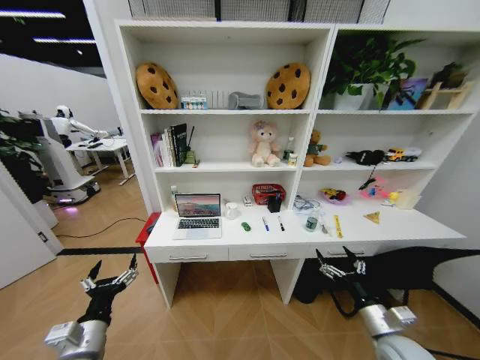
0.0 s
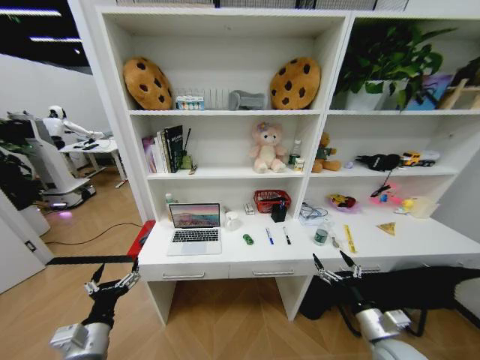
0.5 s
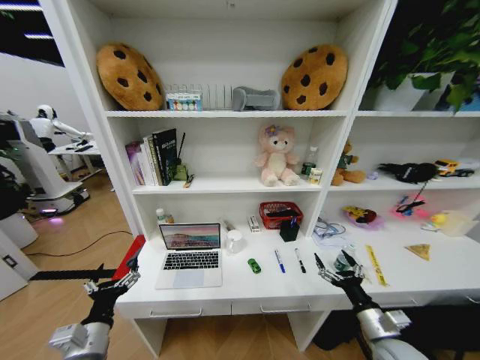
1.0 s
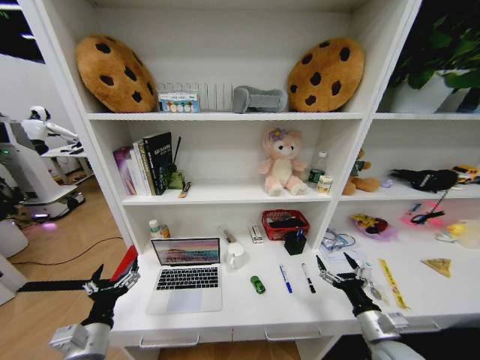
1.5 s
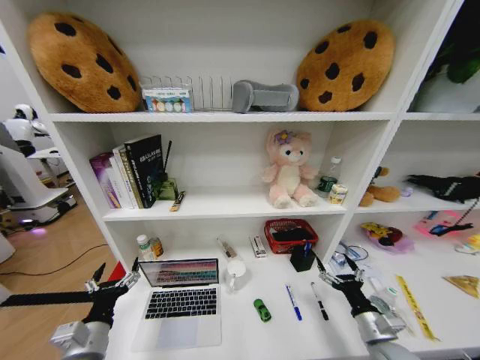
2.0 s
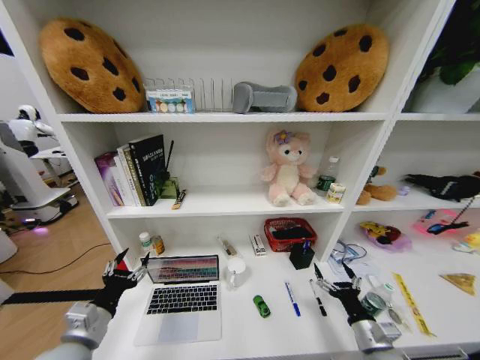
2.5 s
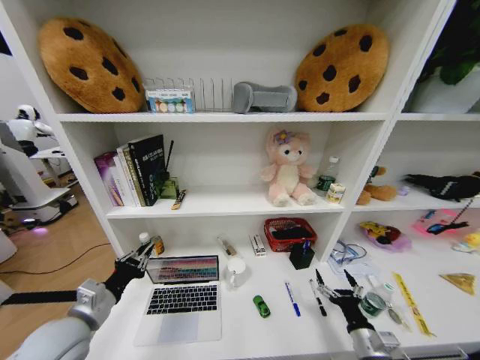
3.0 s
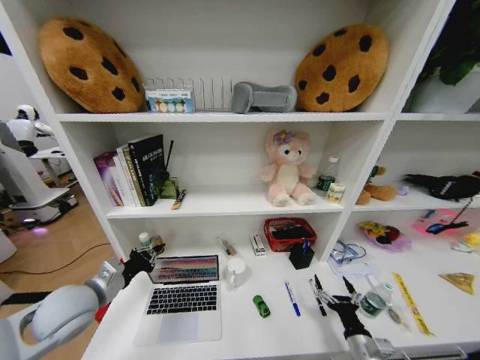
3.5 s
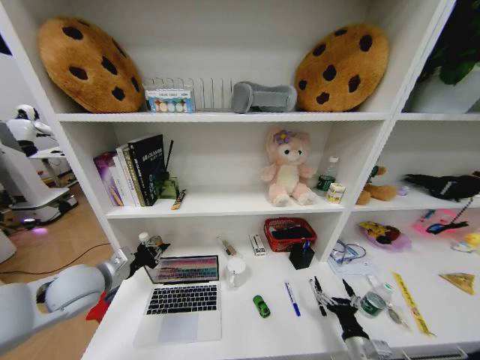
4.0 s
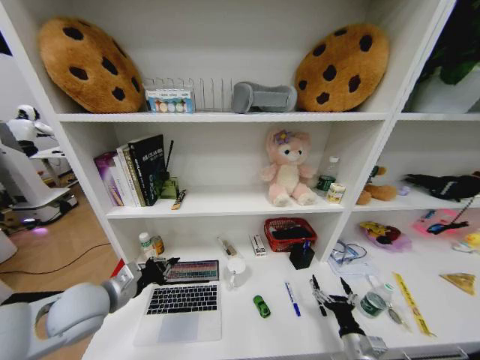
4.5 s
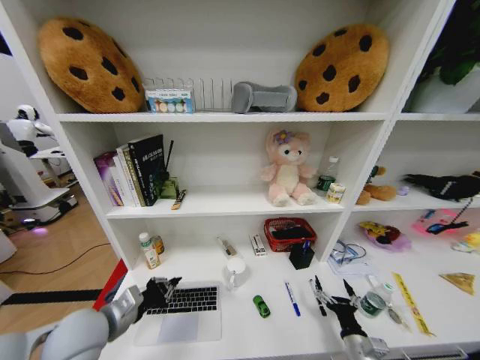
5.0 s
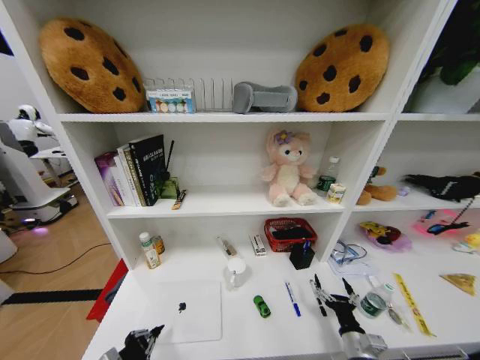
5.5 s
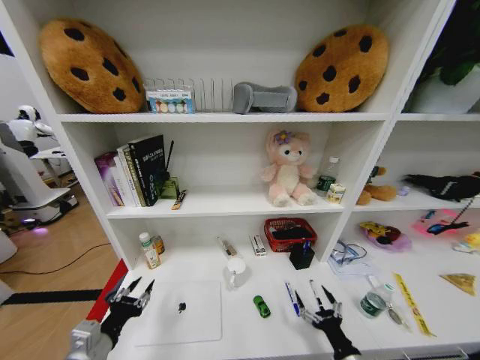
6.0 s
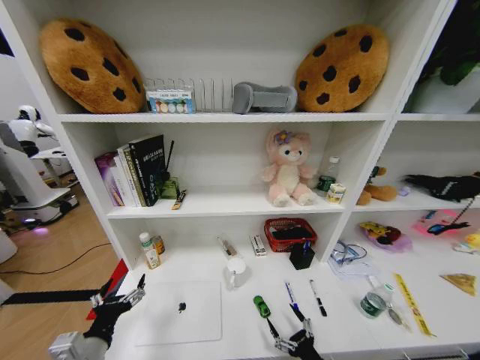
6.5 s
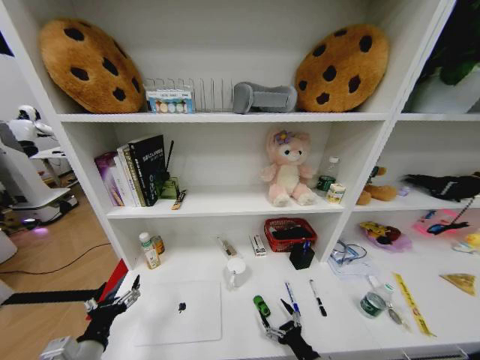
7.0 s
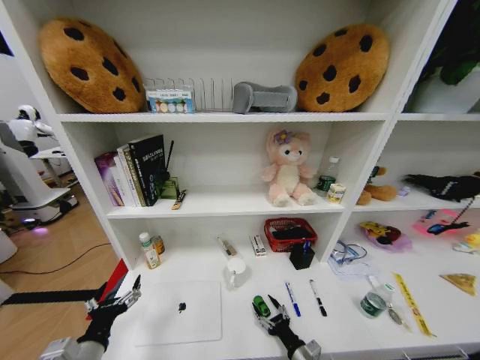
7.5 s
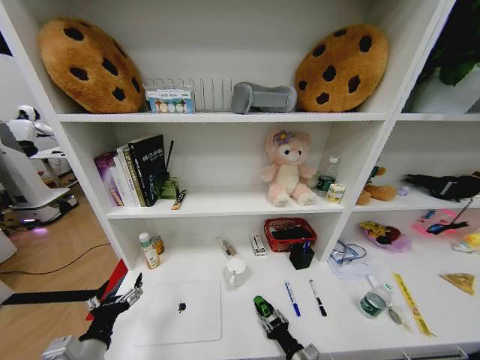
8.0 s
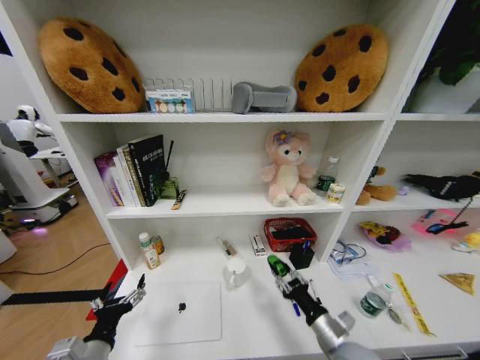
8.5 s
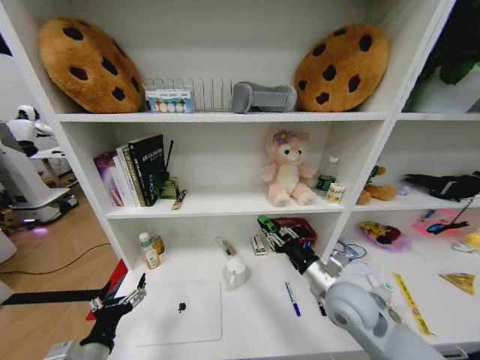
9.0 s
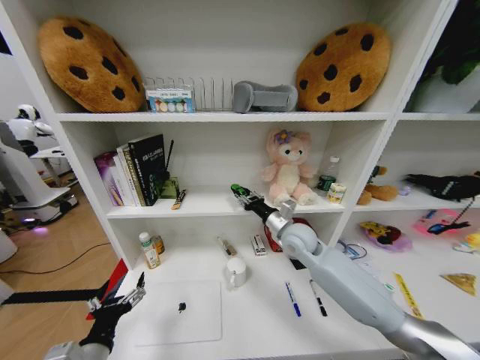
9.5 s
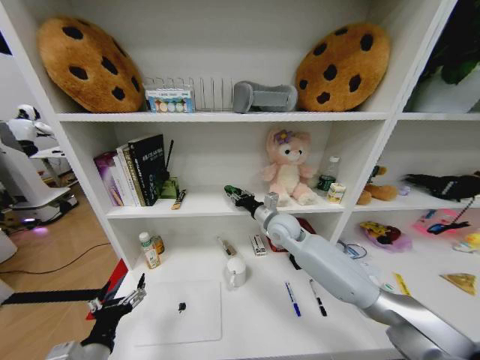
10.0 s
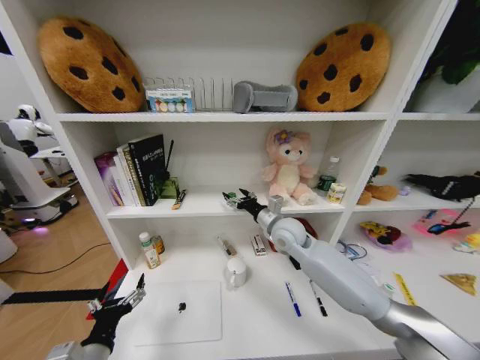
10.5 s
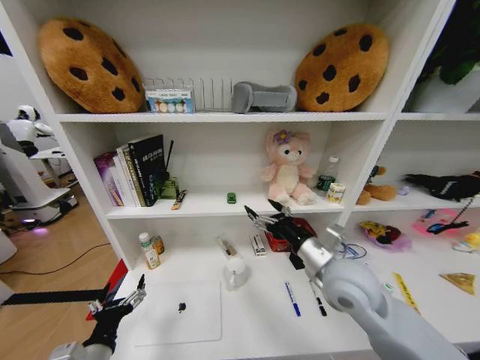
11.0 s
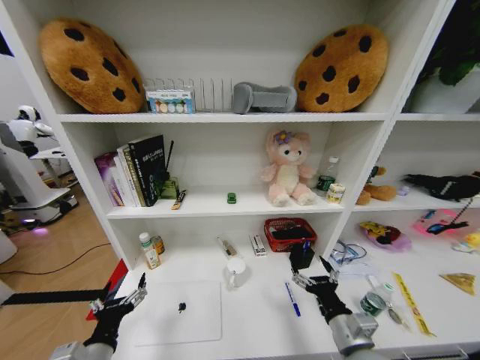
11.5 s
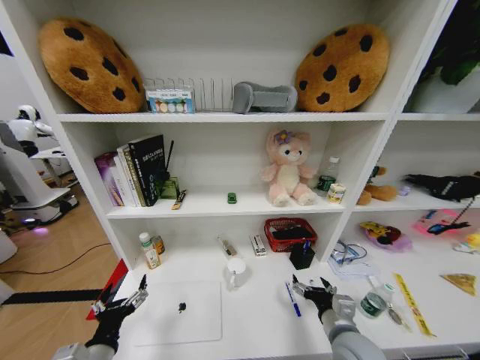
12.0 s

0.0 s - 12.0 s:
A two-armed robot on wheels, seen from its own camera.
Task of the whole recording: Organize the objects on the table.
2.0 s - 4.0 s: The left gripper travels forward and upward by roughly 15 cm, and closes; the right gripper goes roughly 5 cm downward.
4.0 s - 6.0 s: The left gripper moves backward and downward, approximately 20 cm, and opens its fingers.
6.0 s - 8.0 s: The left gripper opens up; the right gripper travels to the left and downward by about 10 cm, and closes up.
8.0 s - 10.0 s: The right gripper goes some 40 cm forward and upward.
10.0 s - 12.0 s: The right gripper heads backward and downward, covering about 30 cm, and opens its fingers.

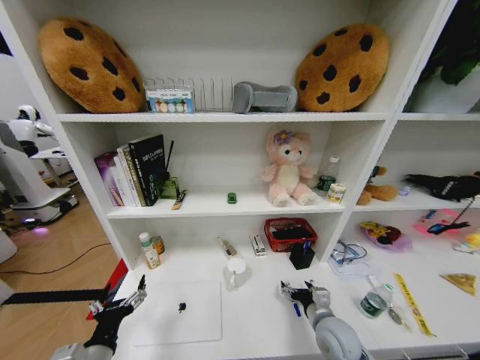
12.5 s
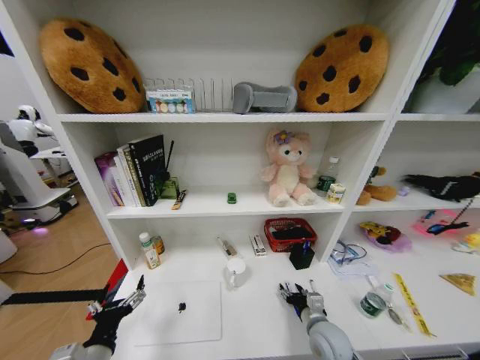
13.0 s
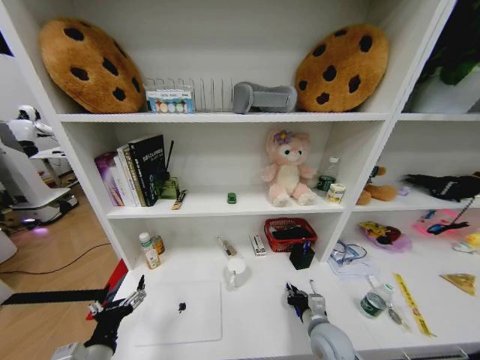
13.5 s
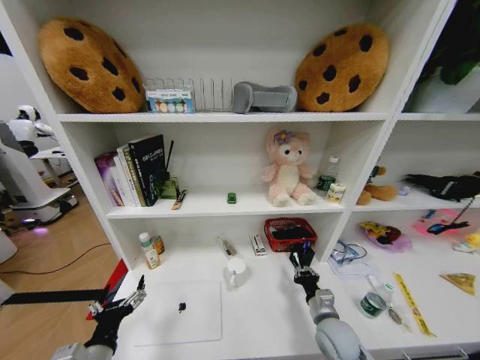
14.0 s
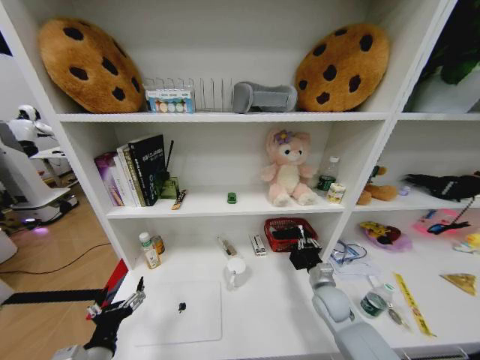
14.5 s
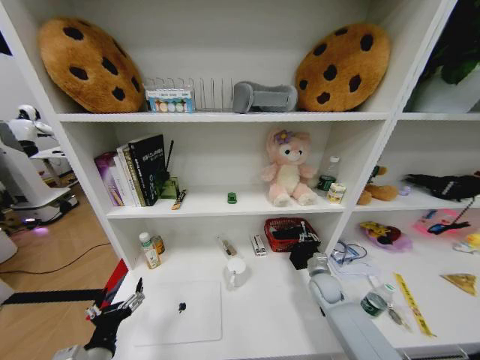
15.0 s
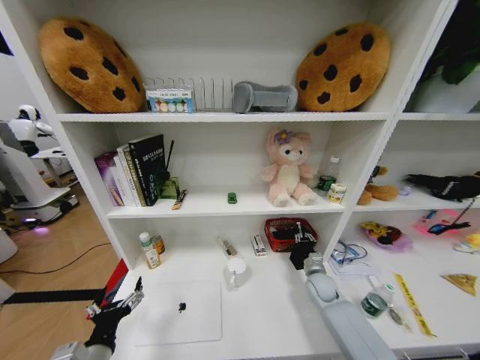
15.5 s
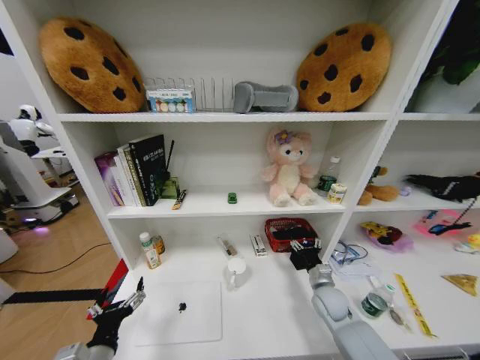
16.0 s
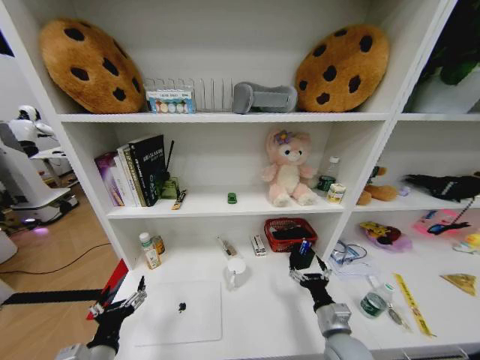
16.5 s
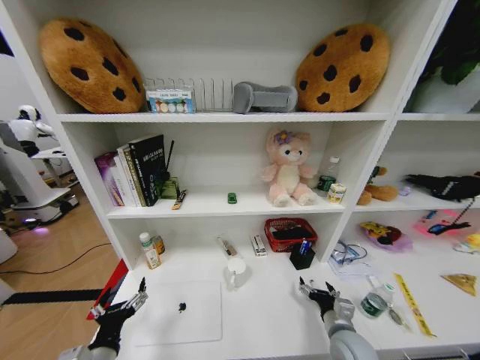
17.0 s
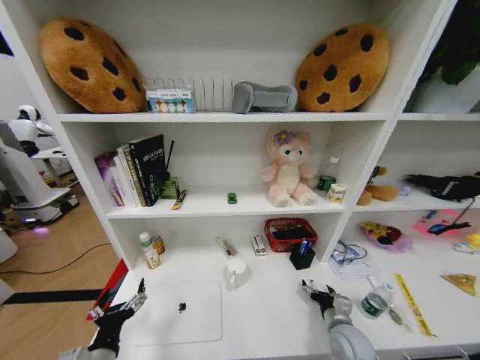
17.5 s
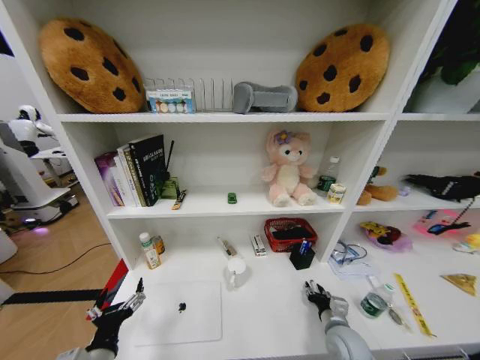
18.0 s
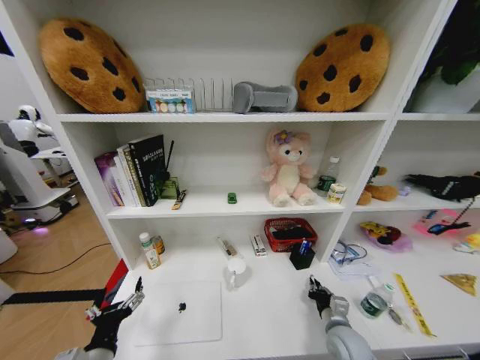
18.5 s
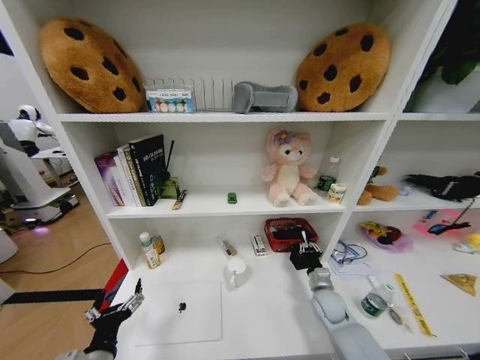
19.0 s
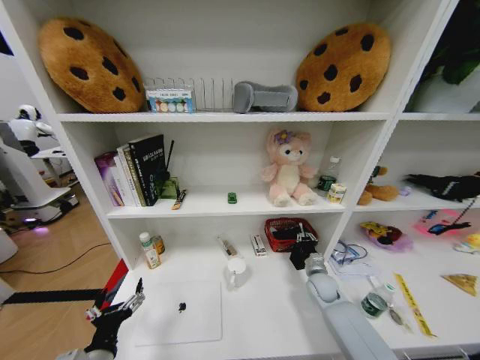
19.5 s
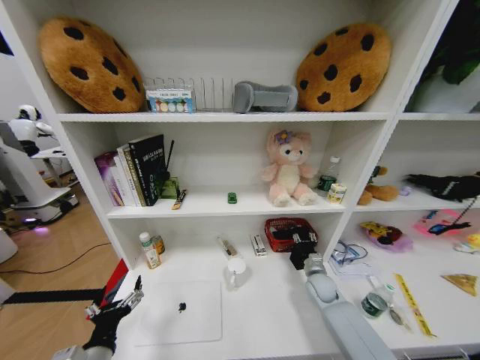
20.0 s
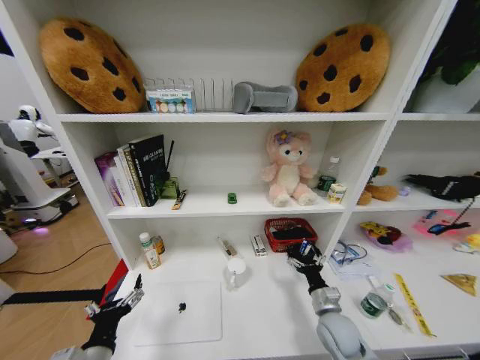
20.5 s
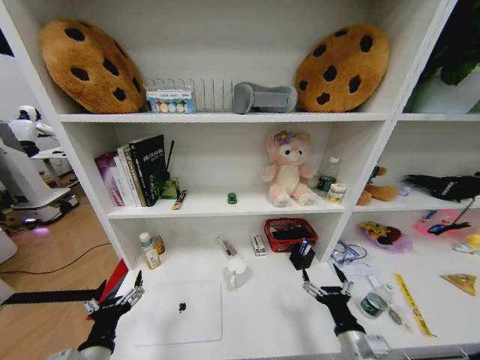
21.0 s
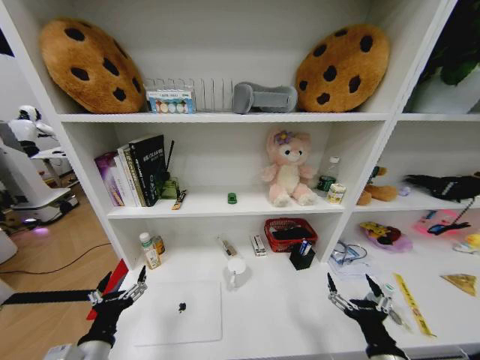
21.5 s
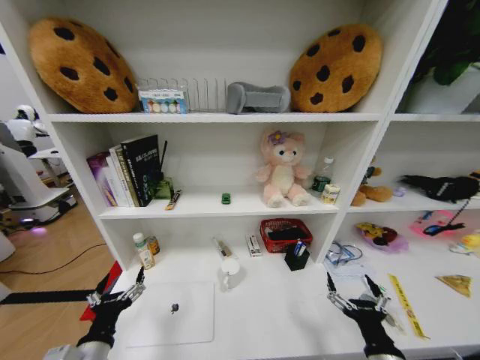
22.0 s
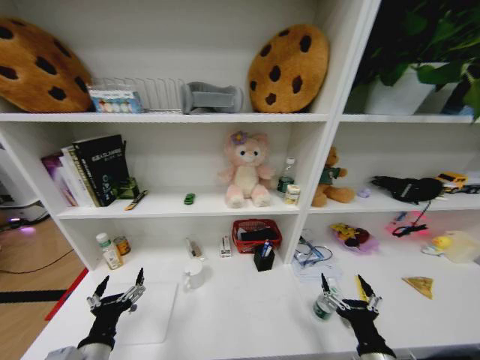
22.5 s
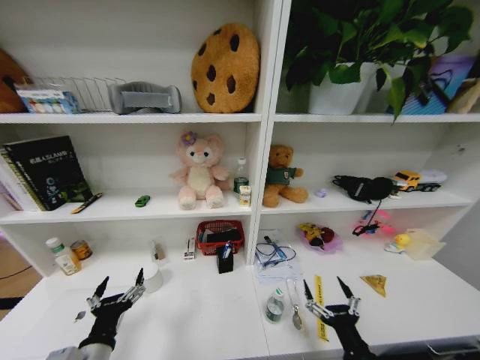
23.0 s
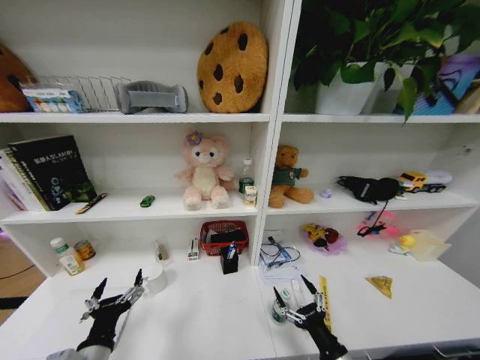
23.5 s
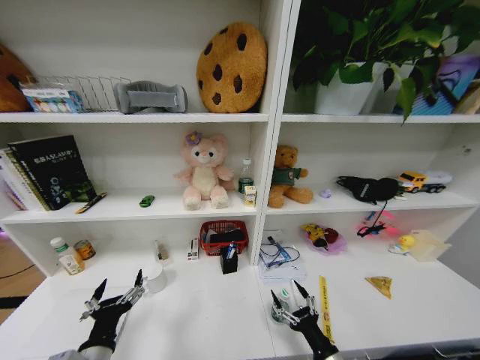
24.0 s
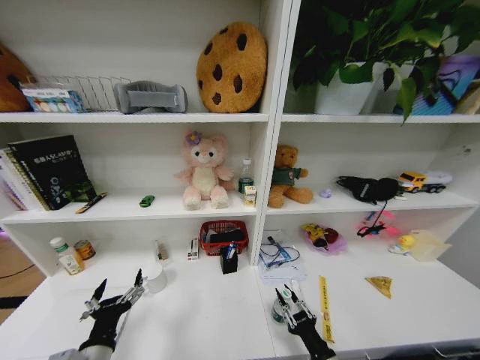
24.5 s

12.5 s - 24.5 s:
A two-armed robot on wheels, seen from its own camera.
Task of the whole recording: Organize the objects on the table.
12.5 s - 14.5 s: The right gripper goes about 10 cm forward, and closes up.
14.5 s - 16.5 s: The right gripper travels backward by approximately 15 cm, and opens.
16.5 s - 18.5 s: The right gripper shifts by roughly 5 cm, and closes its fingers.
18.5 s - 20.5 s: The right gripper reaches some 15 cm forward, then returns, and opens up.
20.5 s - 22.5 s: The right gripper goes about 20 cm backward and upward.
22.5 s - 24.5 s: The right gripper shifts some 5 cm downward, and closes up.

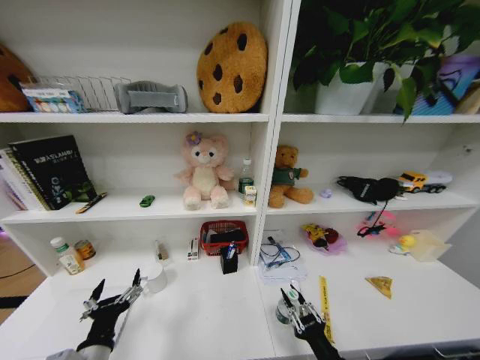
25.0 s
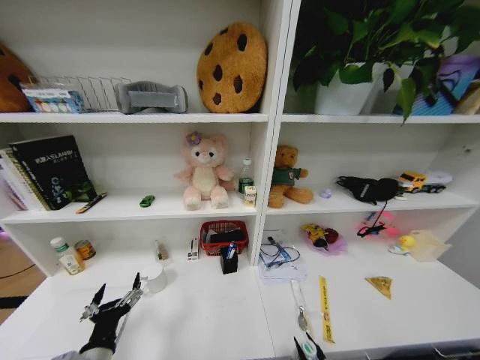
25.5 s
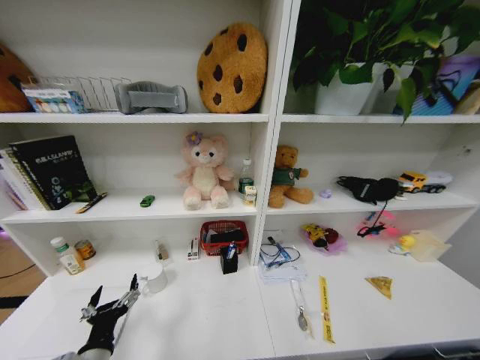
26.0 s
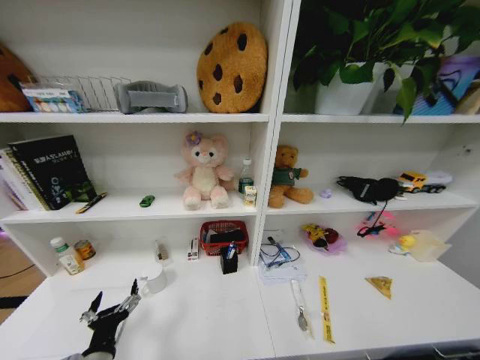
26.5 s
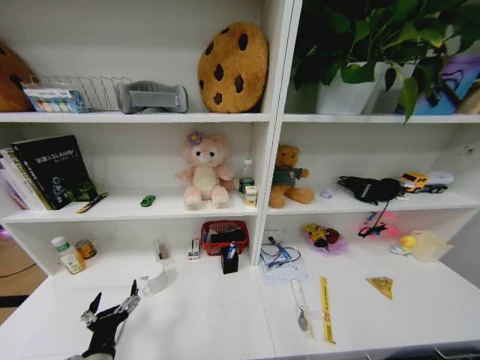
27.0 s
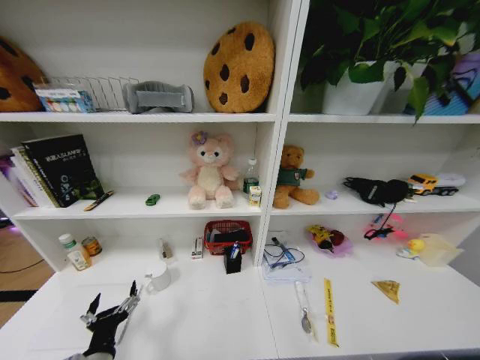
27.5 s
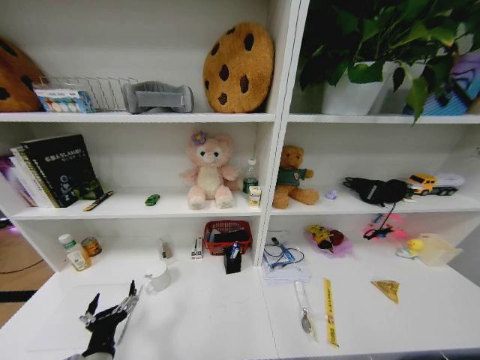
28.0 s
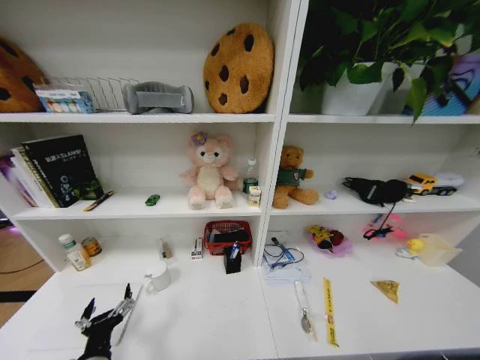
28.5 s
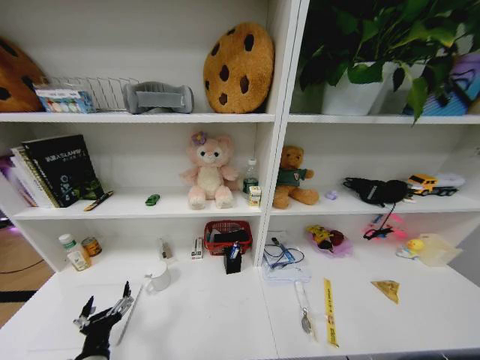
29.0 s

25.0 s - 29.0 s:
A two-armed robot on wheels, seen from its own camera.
Task of the whole recording: Organize the objects on the table.
25.0 s - 27.0 s: The right gripper heads downward, covering some 30 cm.
27.0 s - 29.0 s: The right gripper moves upward, about 25 cm, and opens up.
